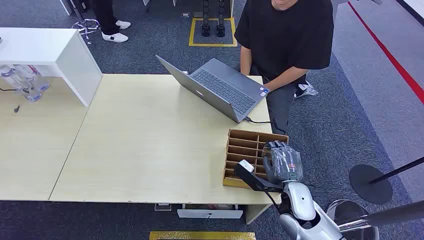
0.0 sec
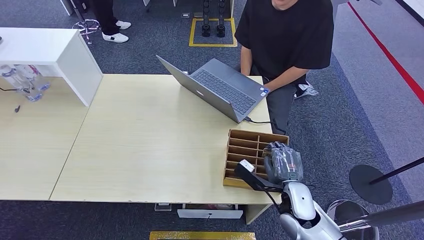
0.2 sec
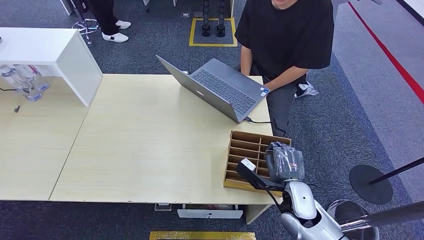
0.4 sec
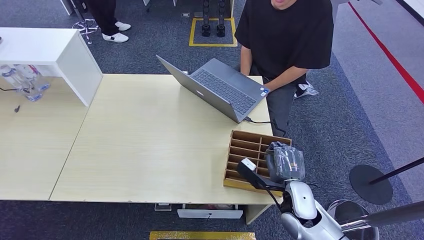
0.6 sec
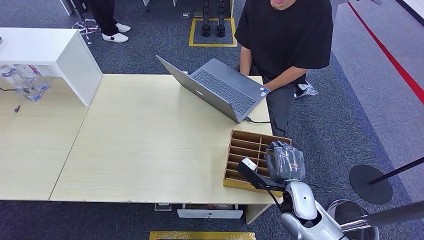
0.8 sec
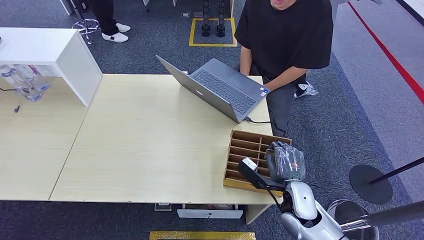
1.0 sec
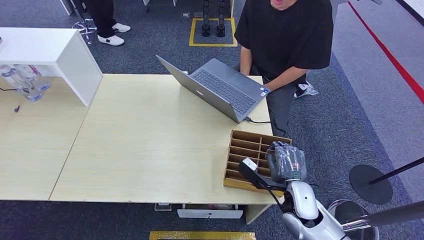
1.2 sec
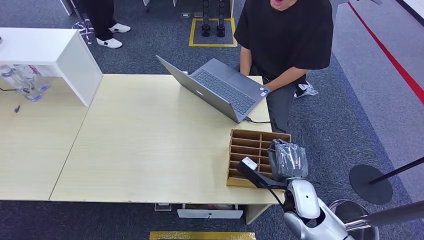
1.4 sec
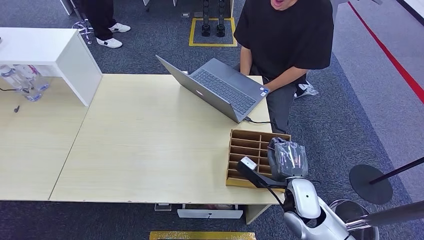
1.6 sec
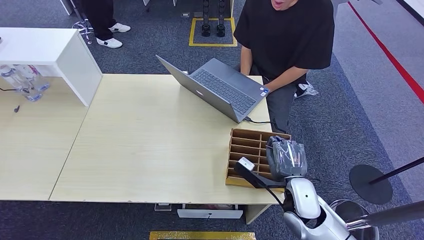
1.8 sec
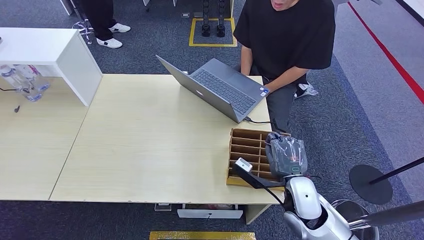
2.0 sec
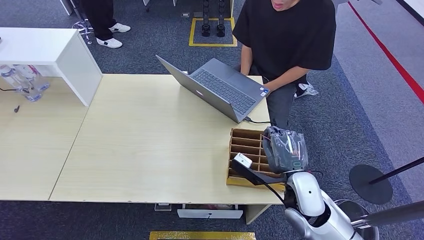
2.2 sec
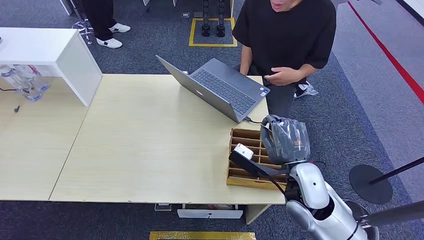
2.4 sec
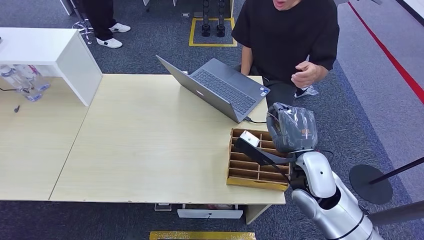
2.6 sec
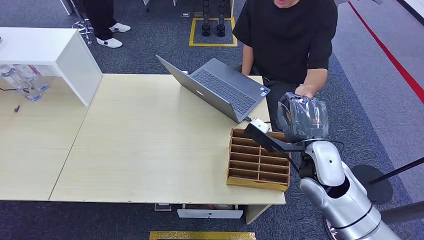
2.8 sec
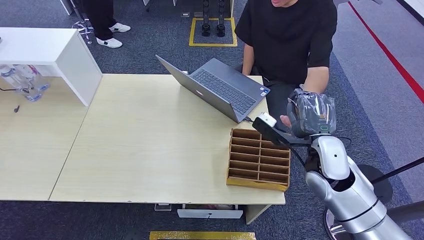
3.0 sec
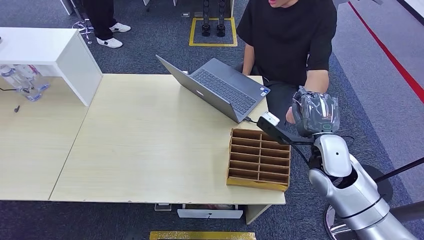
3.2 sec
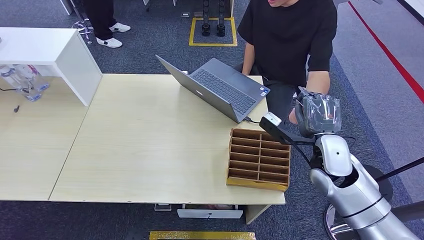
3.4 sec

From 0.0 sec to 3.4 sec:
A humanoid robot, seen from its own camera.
Task of the whole recording: Pick up the card and hand it over to the target person.
Step, from 0.0 sec to 2.2 sec: Pick up the key card from the card box.
Step, from 2.6 sec to 3.4 sec: Hand the key card to the target.
From 1.6 sec to 3.4 sec: The right hand heads forward, to the right and upward, covering about 10 cm.

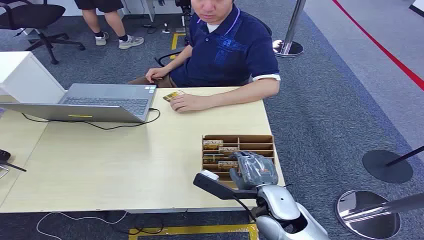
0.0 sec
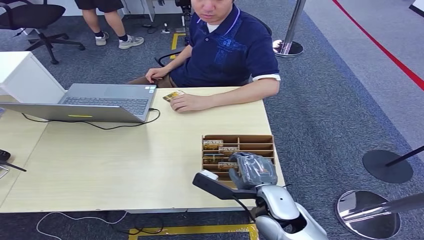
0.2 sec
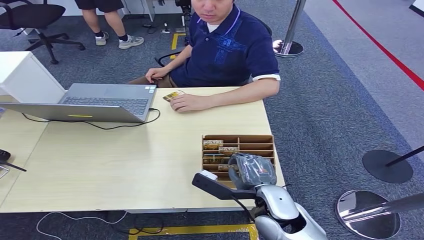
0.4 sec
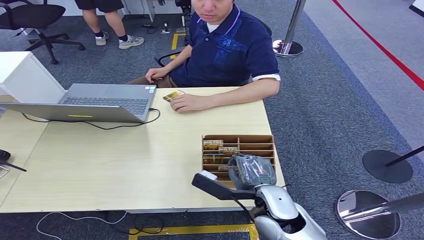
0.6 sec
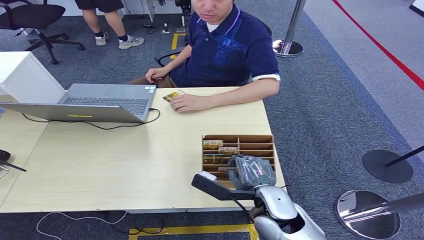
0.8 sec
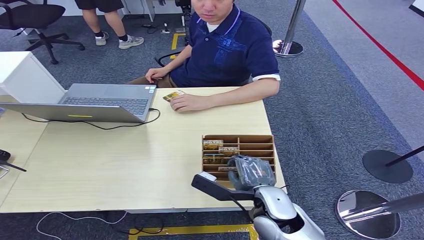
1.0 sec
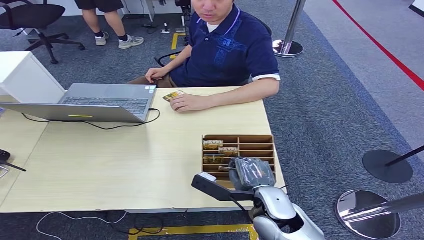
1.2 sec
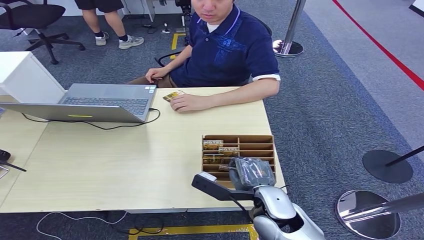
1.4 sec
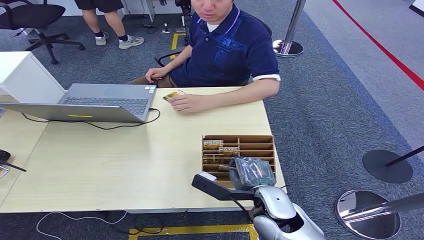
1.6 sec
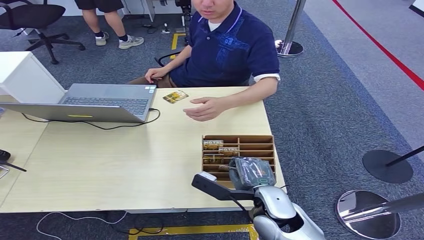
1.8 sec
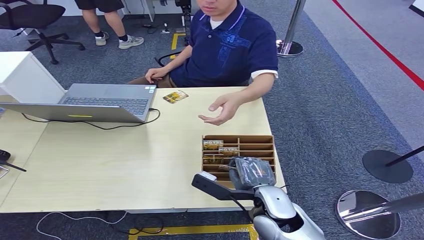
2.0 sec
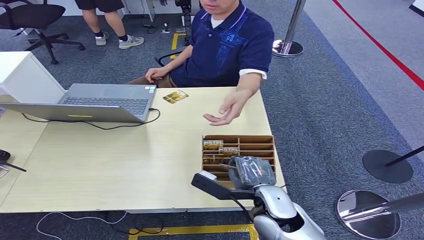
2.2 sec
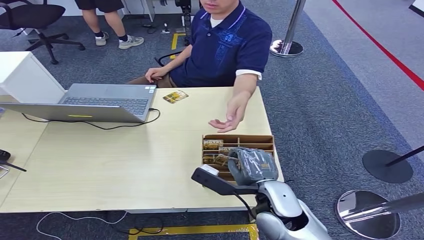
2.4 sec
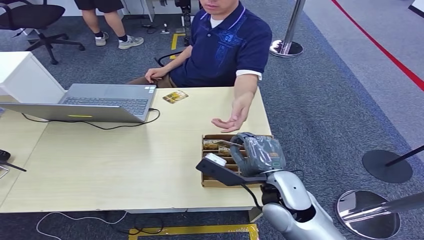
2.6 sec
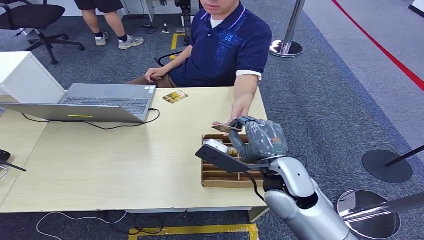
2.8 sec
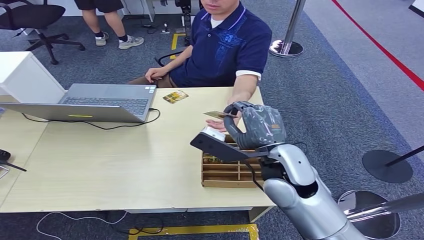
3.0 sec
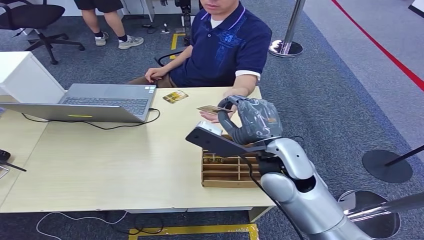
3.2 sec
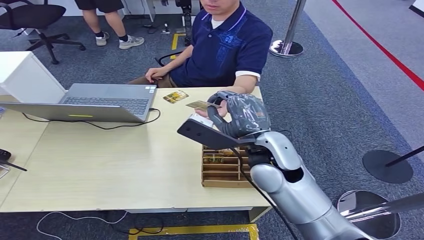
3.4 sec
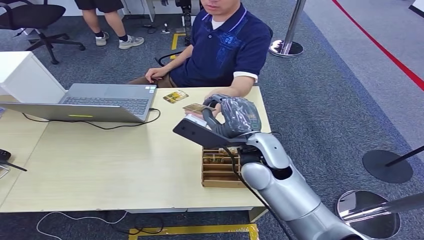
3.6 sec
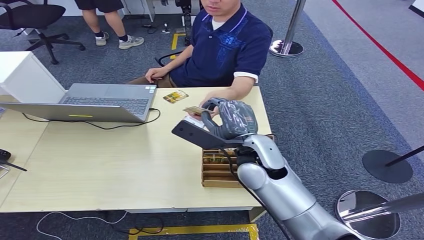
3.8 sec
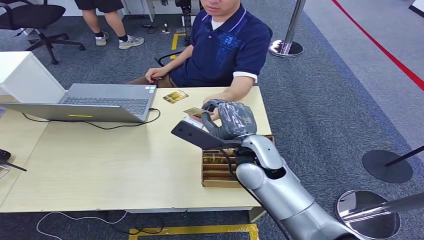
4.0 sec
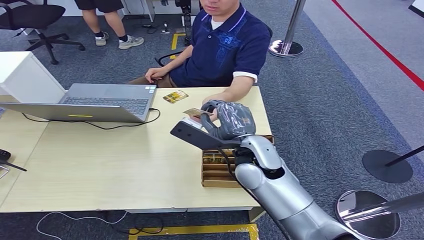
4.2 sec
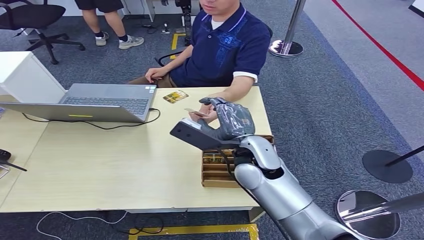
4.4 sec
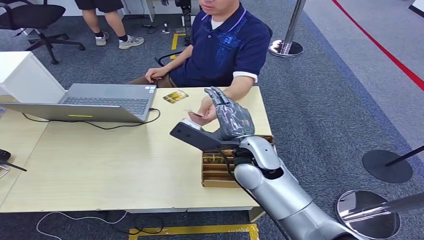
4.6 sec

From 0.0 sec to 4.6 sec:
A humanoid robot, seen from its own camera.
Task of the whole recording: Pick up the card and hand it over to the target person.
Step, from 0.0 sec to 2.8 sec: Pick up the key card from the card box.
Step, from 3.0 sec to 4.6 sec: Hand the key card to the target.
From 1.6 sec to 3.0 sec: The right hand shifts some 15 cm upward and forward.
From 3.0 sec to 4.6 sec: The right hand moves about 5 cm.

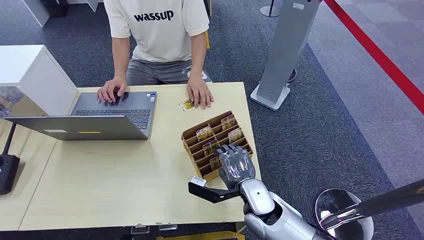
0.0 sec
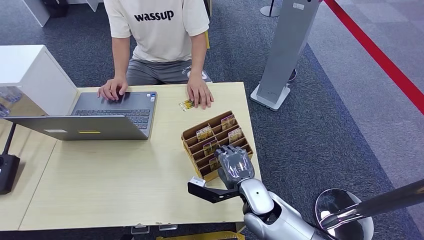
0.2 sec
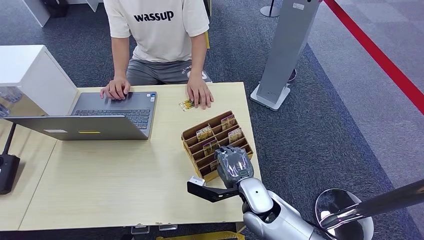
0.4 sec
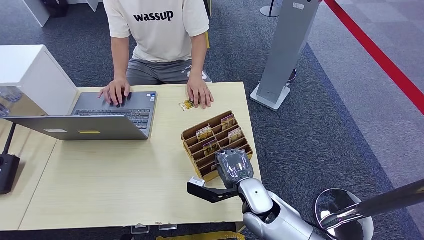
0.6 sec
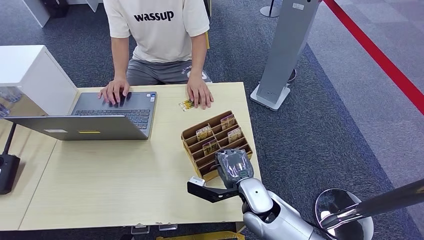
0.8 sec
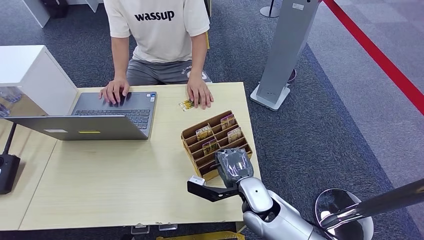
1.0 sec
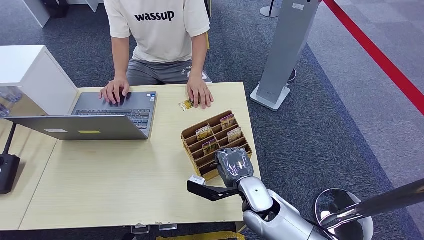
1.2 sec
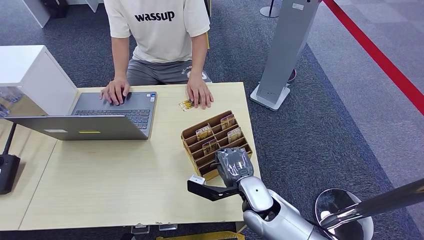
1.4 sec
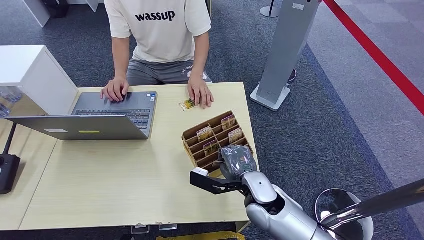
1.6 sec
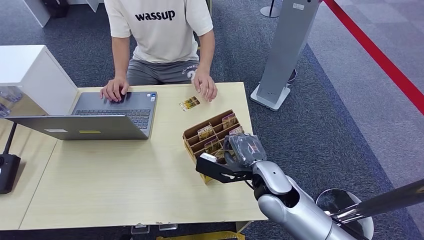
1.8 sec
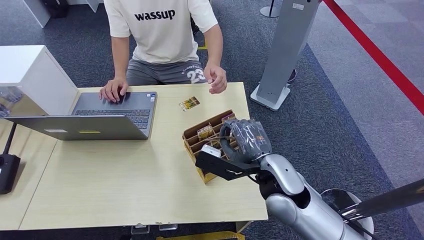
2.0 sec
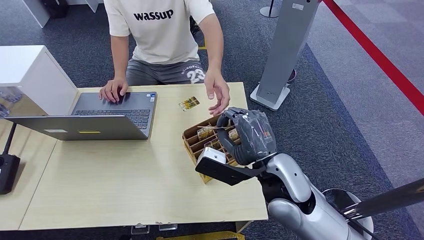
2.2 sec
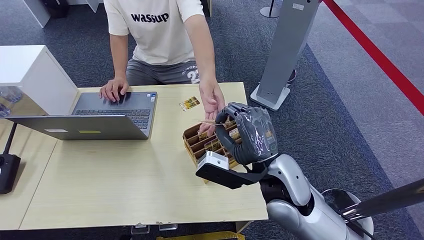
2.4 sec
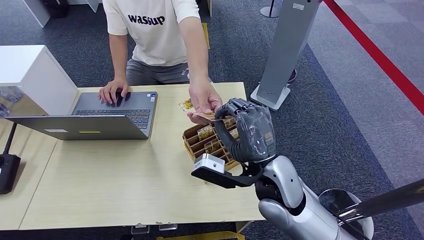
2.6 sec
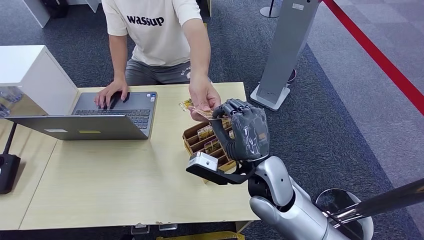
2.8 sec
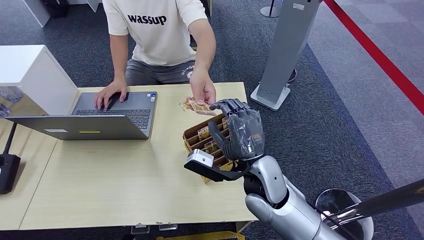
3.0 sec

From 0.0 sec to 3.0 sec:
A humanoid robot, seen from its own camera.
Task of the whole recording: Pick up the card and hand it over to the target person.
Step, from 0.0 sec to 1.0 sec: Pick up the key card from the card box.
Step, from 2.2 sec to 3.0 sec: Hand the key card to the target.
From 1.6 sec to 3.0 sec: The right hand is displaced to the left by about 5 cm.
